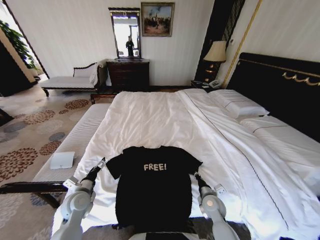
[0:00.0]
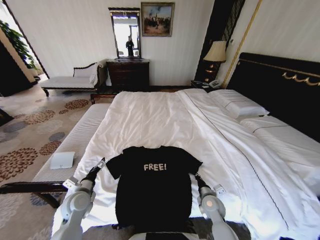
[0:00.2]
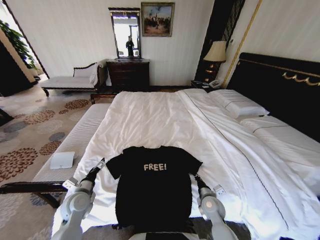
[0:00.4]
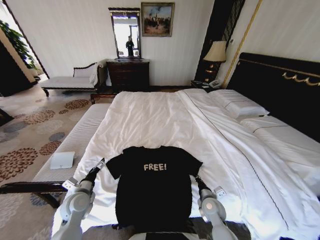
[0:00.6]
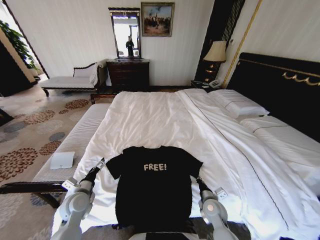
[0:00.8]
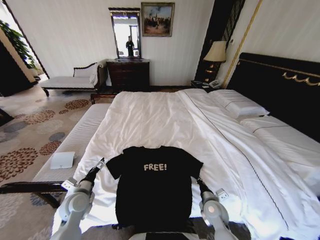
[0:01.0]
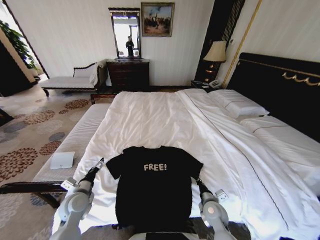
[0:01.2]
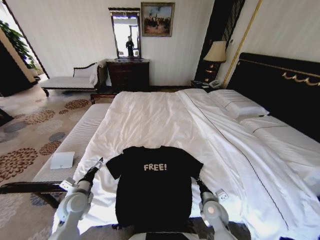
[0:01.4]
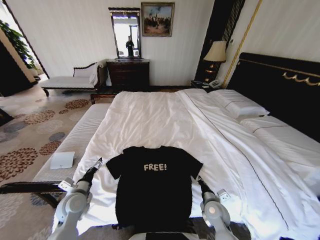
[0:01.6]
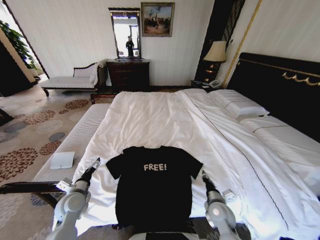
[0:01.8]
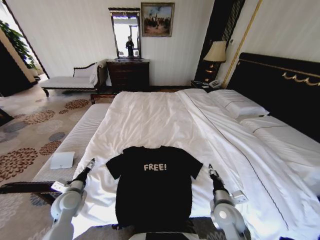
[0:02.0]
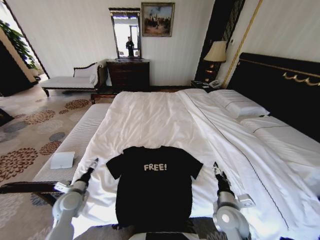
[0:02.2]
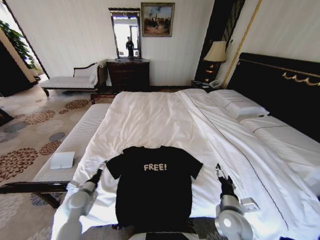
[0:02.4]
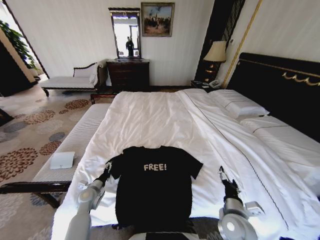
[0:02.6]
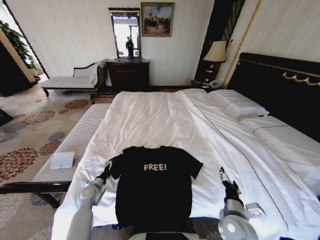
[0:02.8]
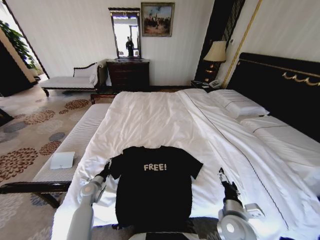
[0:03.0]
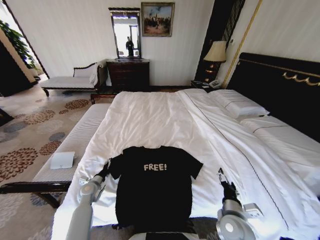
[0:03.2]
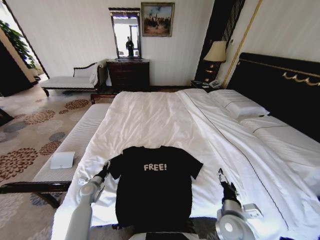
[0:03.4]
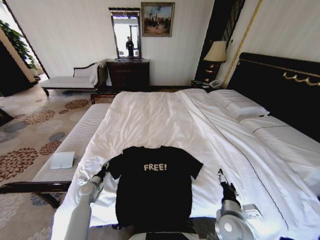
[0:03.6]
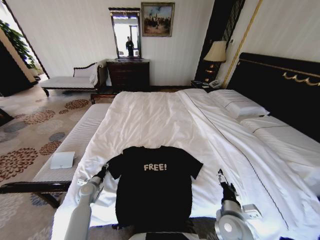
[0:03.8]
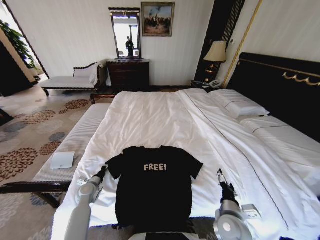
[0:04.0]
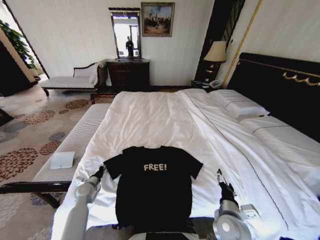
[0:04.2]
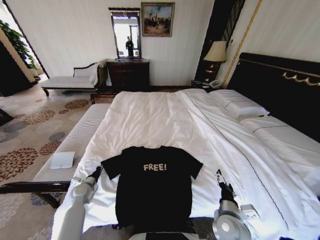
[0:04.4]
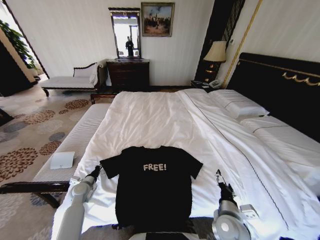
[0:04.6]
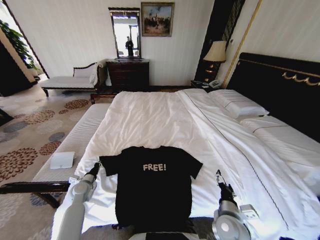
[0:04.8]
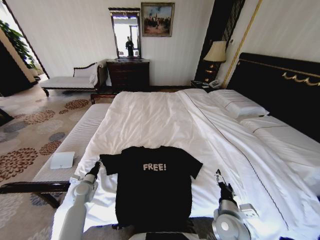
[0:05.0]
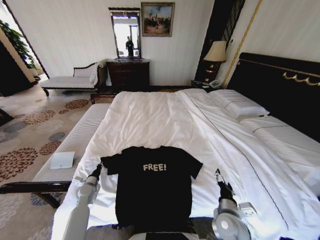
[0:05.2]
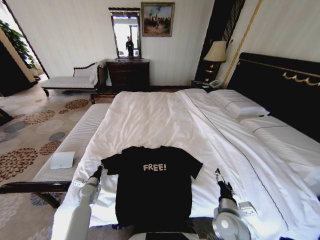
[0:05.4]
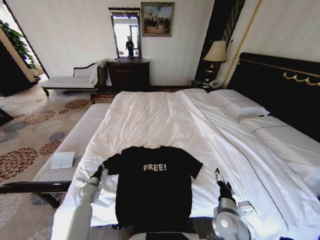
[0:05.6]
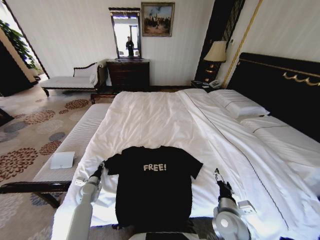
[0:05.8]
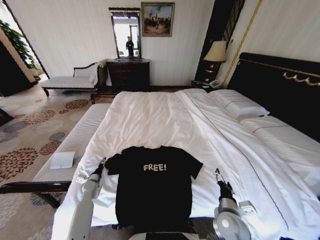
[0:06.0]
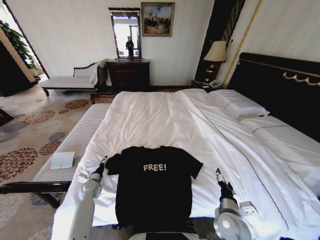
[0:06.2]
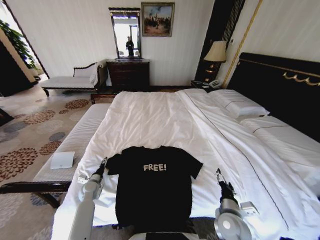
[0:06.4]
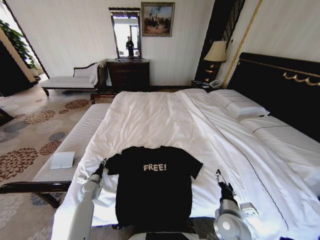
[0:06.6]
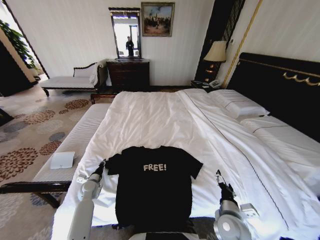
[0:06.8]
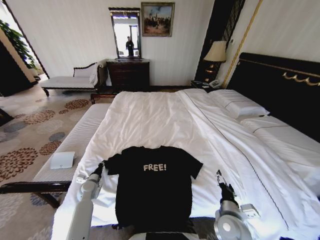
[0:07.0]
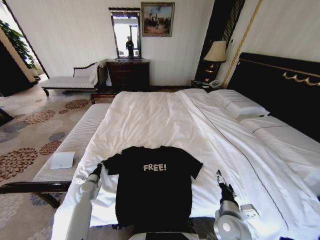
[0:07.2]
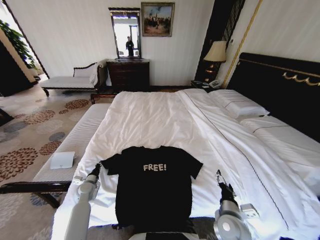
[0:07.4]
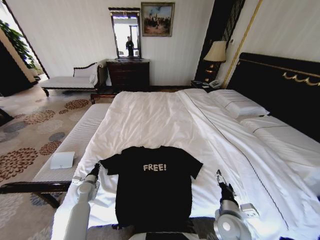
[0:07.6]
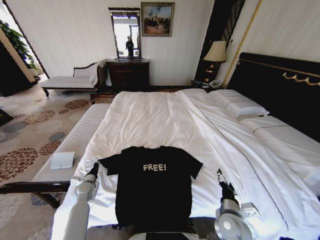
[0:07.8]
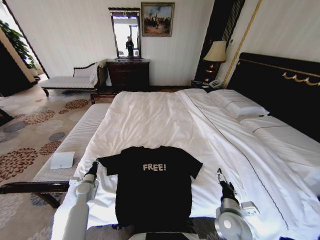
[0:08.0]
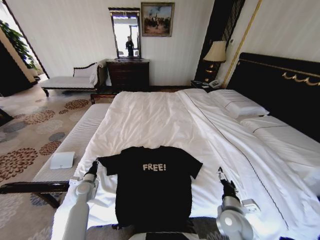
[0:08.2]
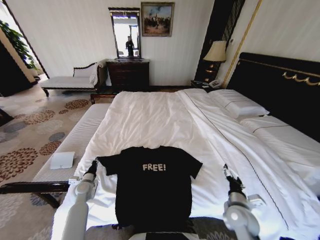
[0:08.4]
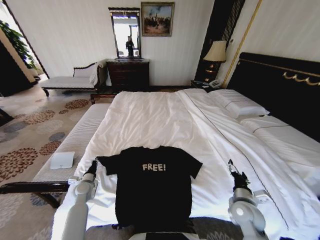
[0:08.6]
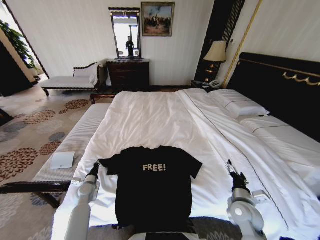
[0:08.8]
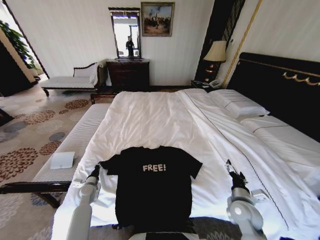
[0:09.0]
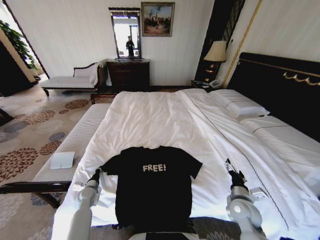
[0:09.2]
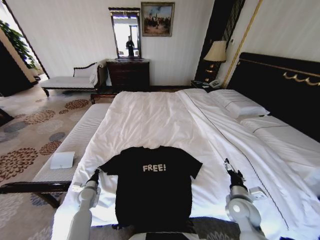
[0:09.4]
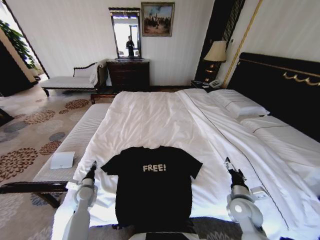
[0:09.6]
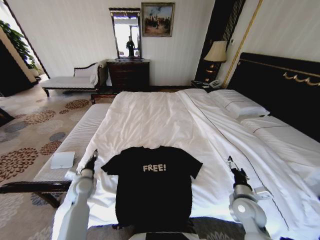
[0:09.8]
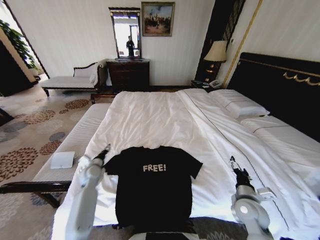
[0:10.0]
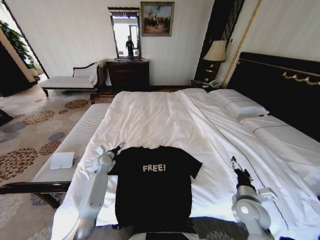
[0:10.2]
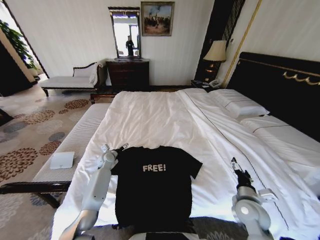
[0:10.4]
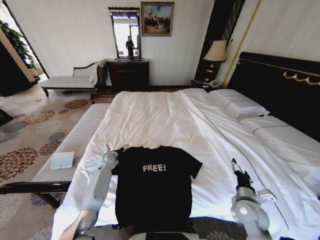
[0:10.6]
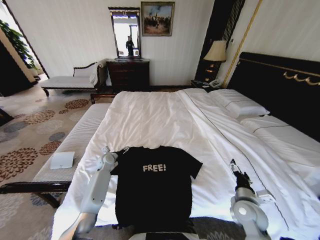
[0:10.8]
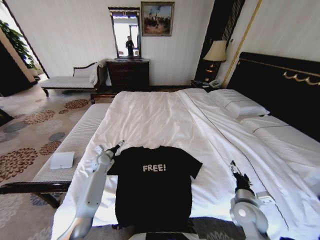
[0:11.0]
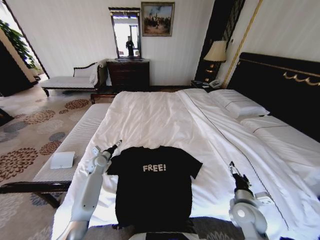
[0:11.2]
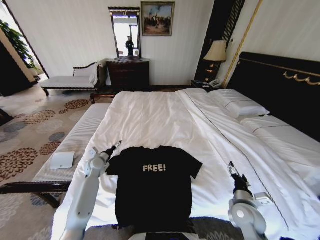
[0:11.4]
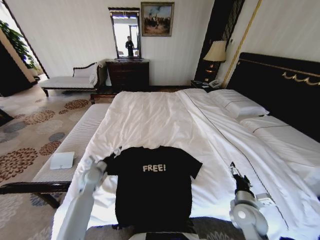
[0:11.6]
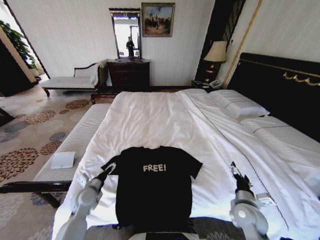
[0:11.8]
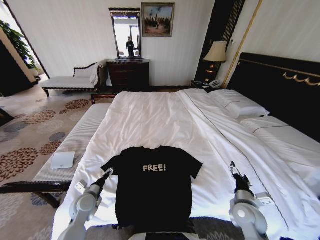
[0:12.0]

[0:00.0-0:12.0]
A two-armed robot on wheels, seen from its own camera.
Task of the whole recording: Fold the clothes on the bed.
0:00.0 to 0:01.6: The grippers stay close to where they were, moving slightly.
0:01.6 to 0:03.0: The right gripper moves upward and backward, about 10 cm, and opens its fingers; the left gripper shifts about 10 cm downward and forward.
0:03.0 to 0:04.4: The left gripper closes.
0:04.4 to 0:06.0: The left gripper opens up.
0:06.0 to 0:07.6: The left gripper closes.
0:07.6 to 0:09.0: The right gripper goes about 5 cm to the right.
0:09.0 to 0:10.4: The left gripper travels forward, to the right and upward by some 20 cm, and opens.
0:10.4 to 0:12.0: The left gripper travels backward by some 25 cm.

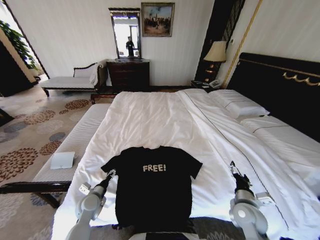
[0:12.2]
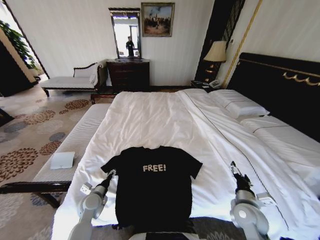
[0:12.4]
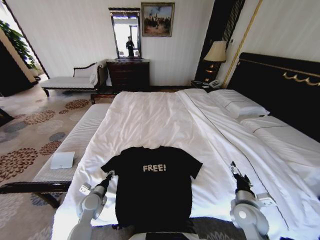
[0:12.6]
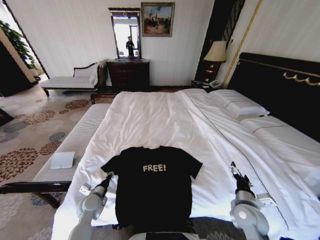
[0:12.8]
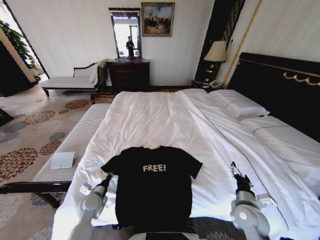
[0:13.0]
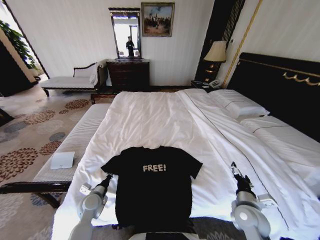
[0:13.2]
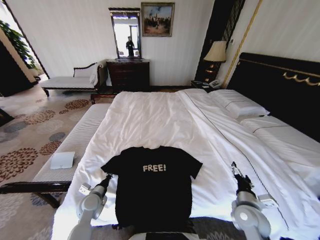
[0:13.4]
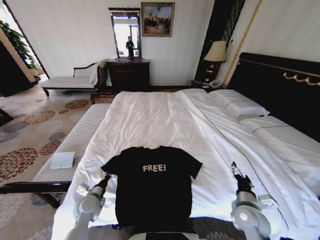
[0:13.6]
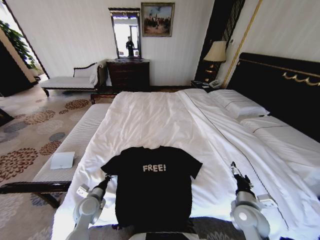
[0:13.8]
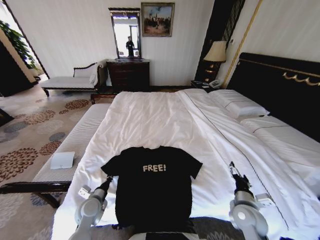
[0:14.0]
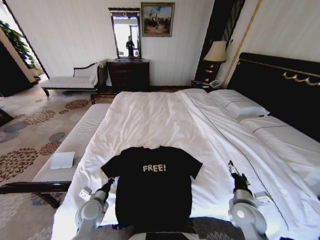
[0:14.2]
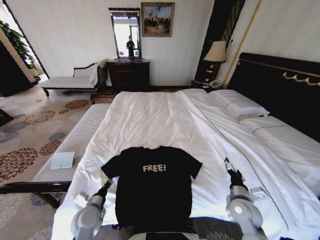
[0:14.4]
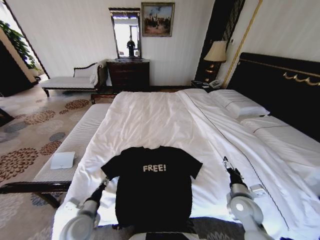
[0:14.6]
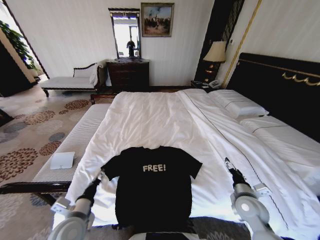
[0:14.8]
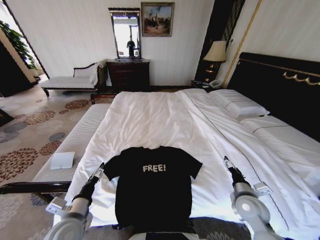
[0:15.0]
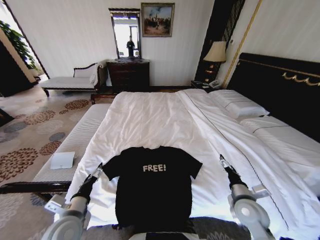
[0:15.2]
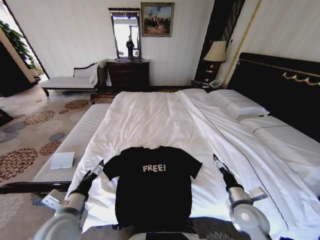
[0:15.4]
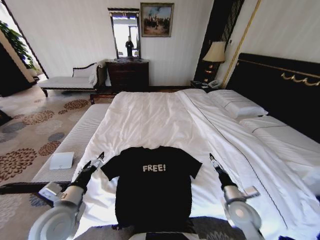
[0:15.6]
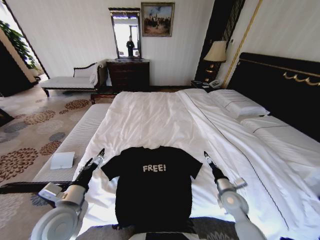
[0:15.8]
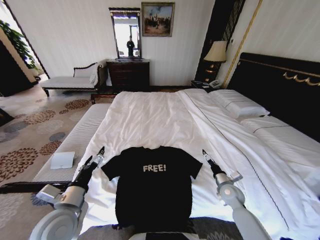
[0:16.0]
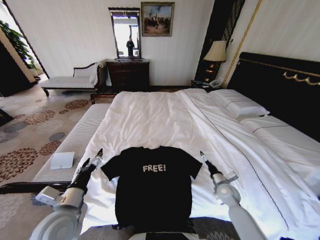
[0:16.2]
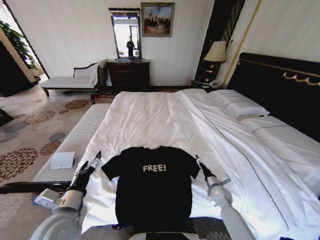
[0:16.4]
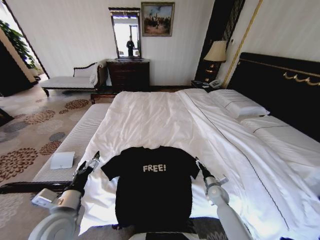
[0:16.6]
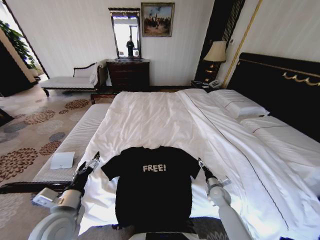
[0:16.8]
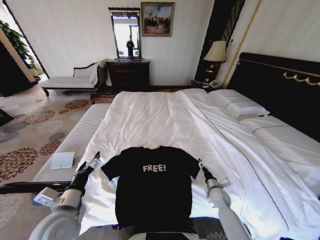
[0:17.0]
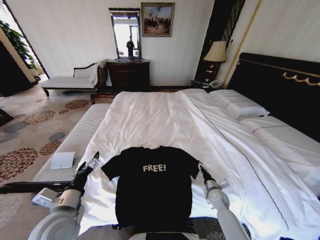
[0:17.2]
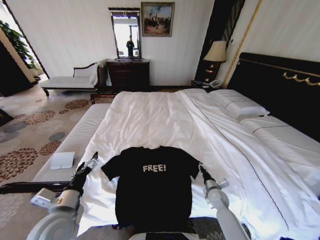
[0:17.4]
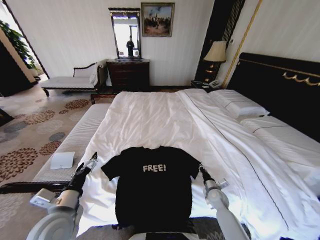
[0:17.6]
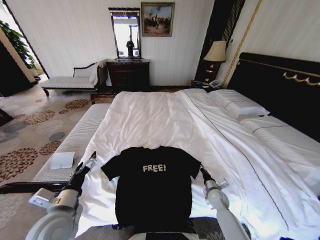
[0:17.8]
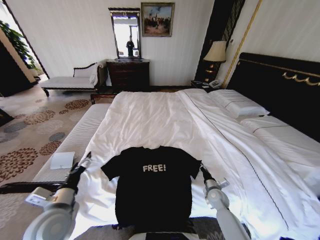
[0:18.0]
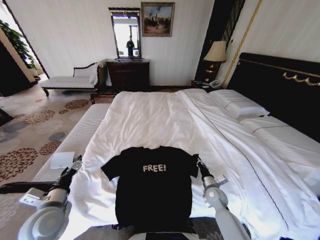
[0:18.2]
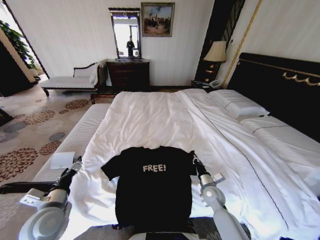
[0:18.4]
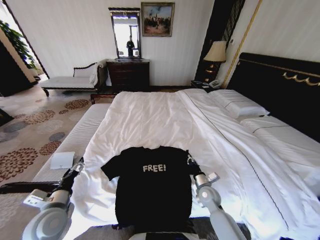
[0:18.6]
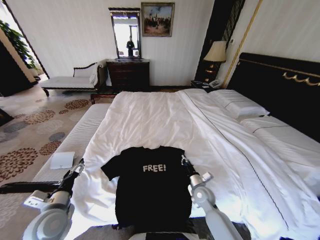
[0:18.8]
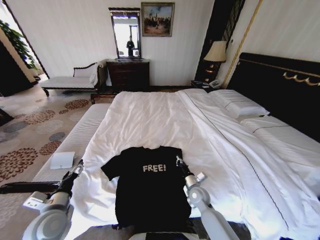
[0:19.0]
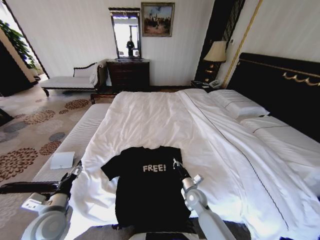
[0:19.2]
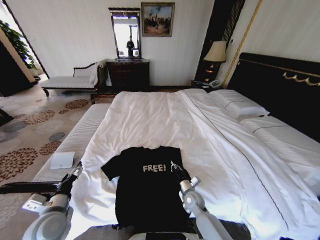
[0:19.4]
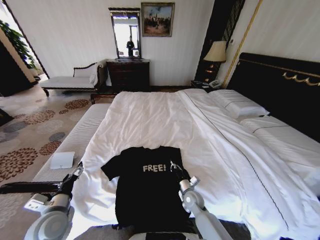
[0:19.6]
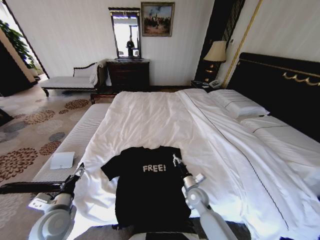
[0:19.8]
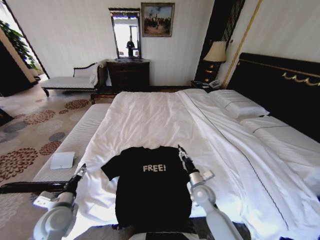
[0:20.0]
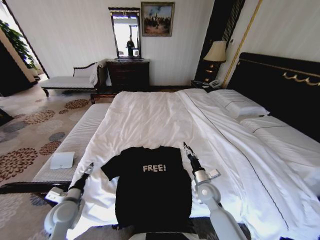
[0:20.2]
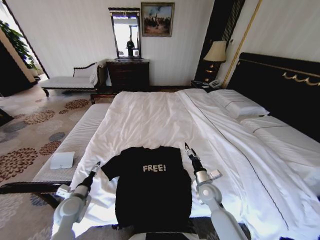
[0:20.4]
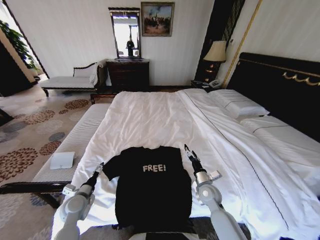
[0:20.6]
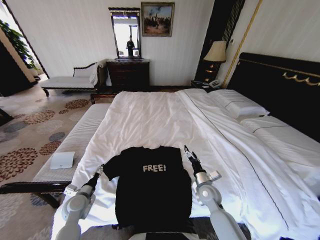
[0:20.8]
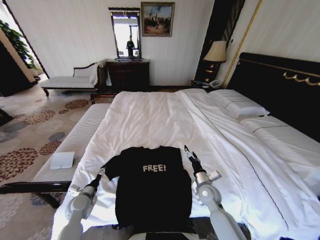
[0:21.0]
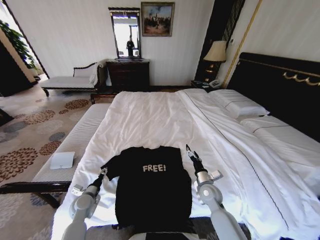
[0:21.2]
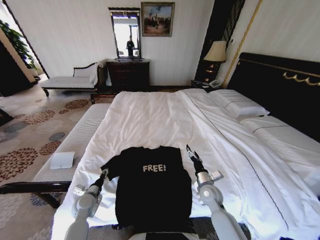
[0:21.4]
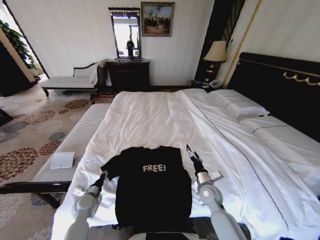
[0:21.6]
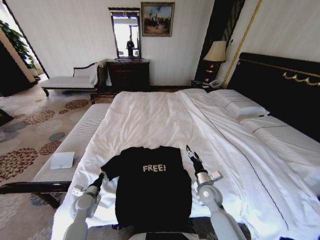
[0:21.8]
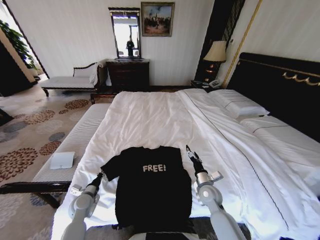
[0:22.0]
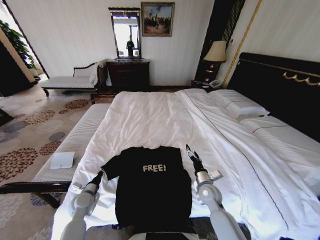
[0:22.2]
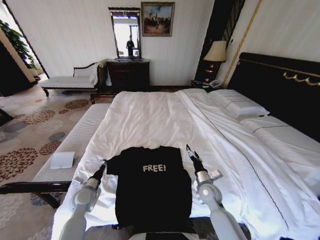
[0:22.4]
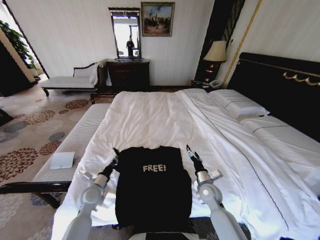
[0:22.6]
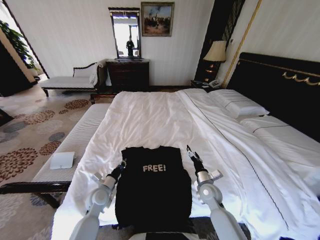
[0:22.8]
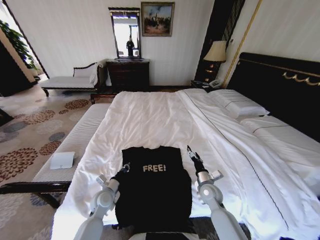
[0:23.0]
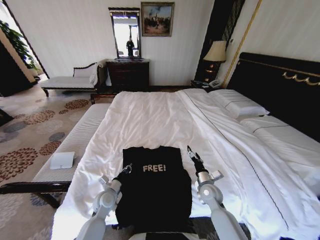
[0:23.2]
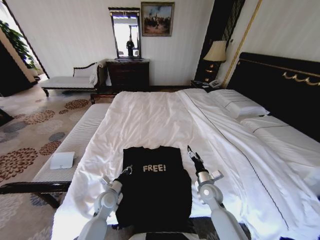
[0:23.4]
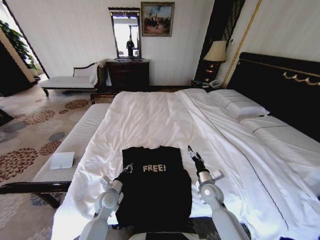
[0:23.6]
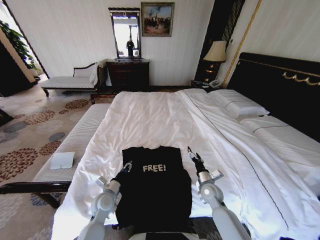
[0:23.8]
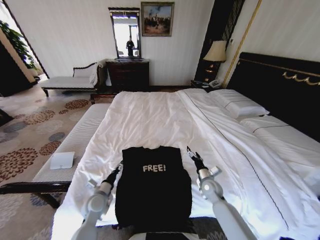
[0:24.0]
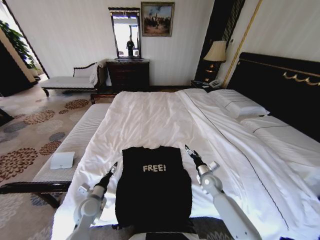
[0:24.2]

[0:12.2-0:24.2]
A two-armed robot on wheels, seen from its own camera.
Task of the whole recording: Fold the clothes on the bed.
0:12.2 to 0:13.8: The left gripper closes its fingers.
0:13.8 to 0:15.2: The left gripper travels upward and backward by approximately 15 cm, and opens up.
0:15.2 to 0:16.6: The right gripper goes approximately 20 cm downward and forward.
0:16.6 to 0:18.2: The right gripper closes up, while the left gripper travels to the left by some 5 cm.
0:18.2 to 0:19.8: The right gripper is displaced to the left by some 10 cm.
0:19.8 to 0:21.2: The left gripper shifts roughly 15 cm downward and forward; the right gripper shifts by about 5 cm, and opens up.
0:21.2 to 0:22.6: The left gripper changes place by approximately 5 cm, and closes its fingers.
0:22.6 to 0:24.2: The right gripper travels forward by some 5 cm, while the left gripper opens up.
